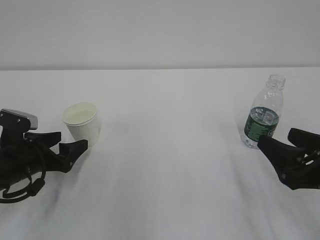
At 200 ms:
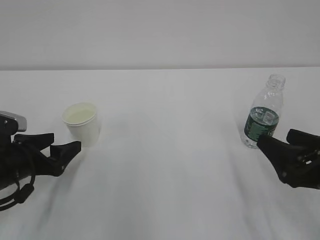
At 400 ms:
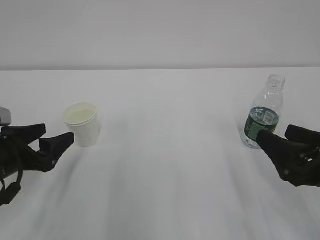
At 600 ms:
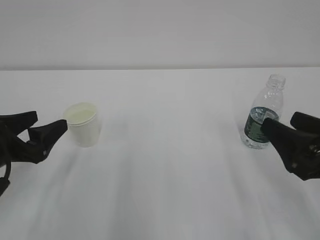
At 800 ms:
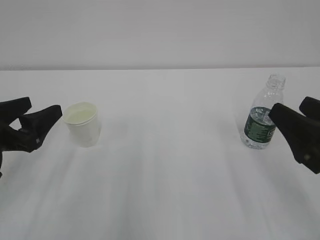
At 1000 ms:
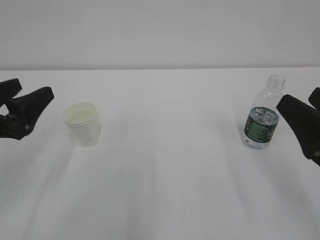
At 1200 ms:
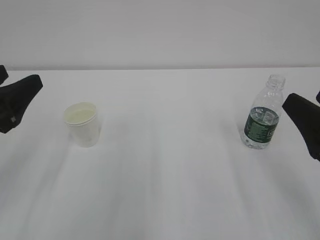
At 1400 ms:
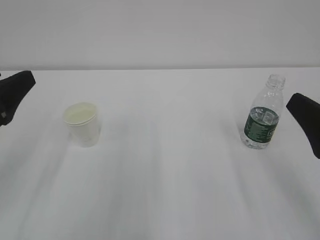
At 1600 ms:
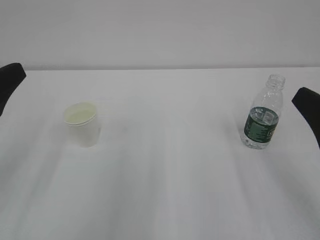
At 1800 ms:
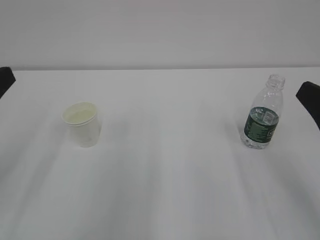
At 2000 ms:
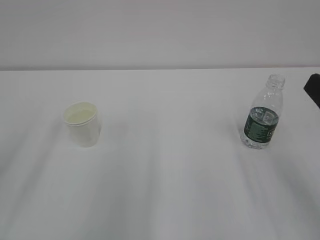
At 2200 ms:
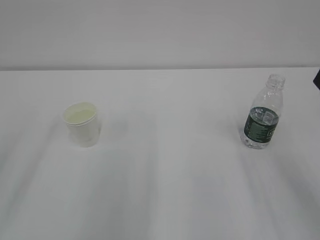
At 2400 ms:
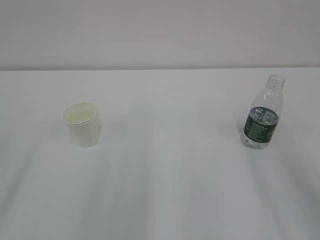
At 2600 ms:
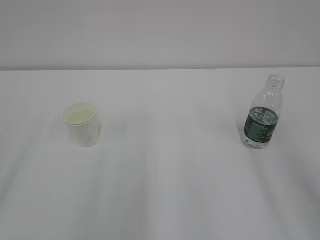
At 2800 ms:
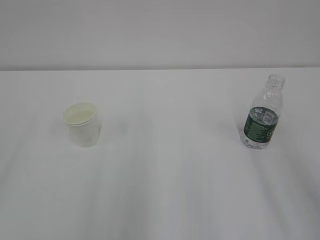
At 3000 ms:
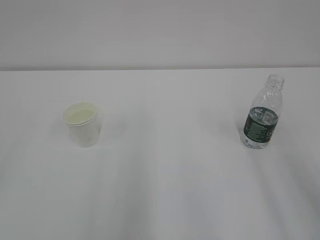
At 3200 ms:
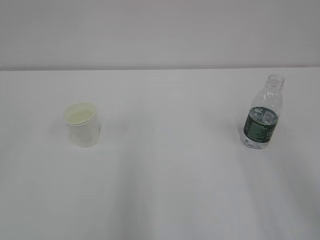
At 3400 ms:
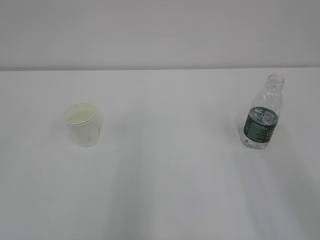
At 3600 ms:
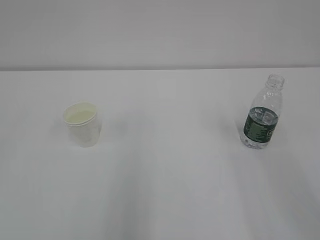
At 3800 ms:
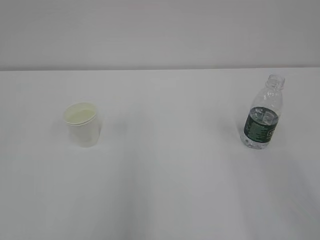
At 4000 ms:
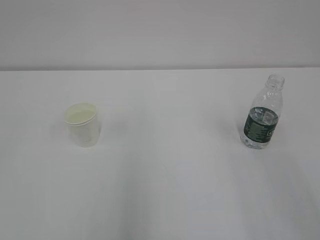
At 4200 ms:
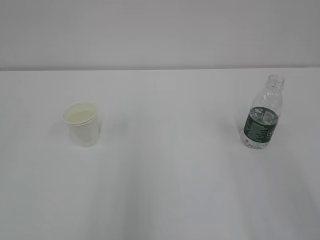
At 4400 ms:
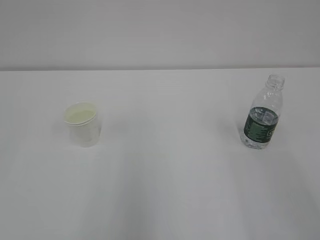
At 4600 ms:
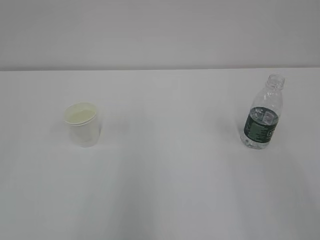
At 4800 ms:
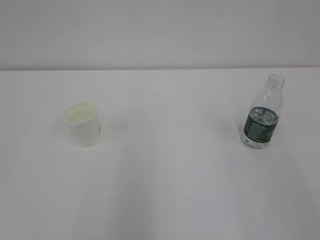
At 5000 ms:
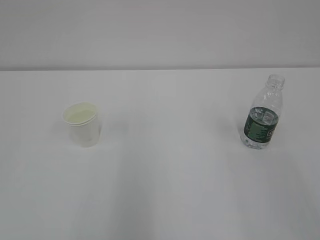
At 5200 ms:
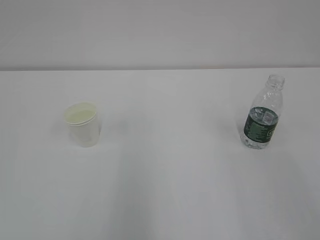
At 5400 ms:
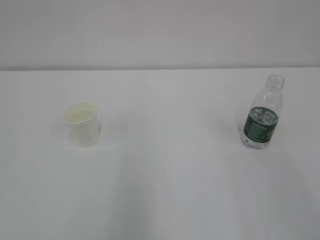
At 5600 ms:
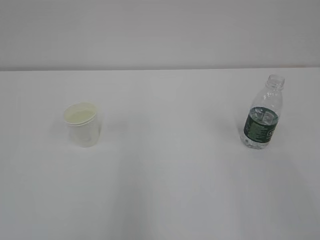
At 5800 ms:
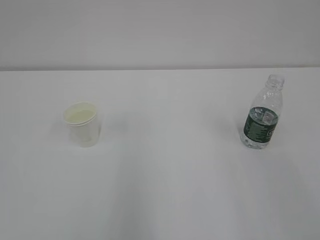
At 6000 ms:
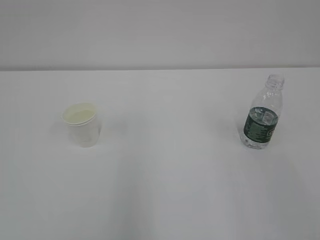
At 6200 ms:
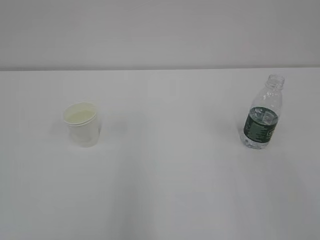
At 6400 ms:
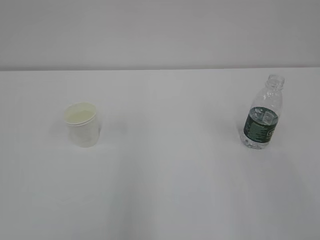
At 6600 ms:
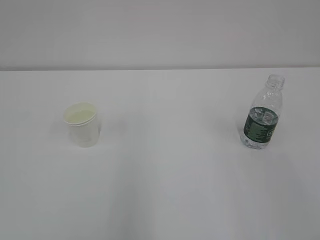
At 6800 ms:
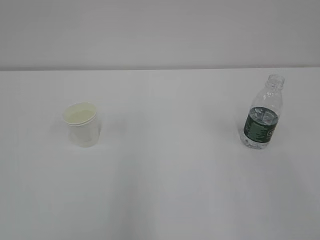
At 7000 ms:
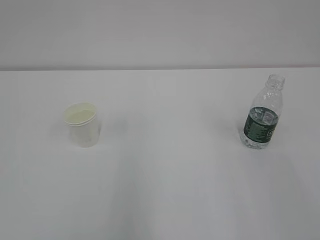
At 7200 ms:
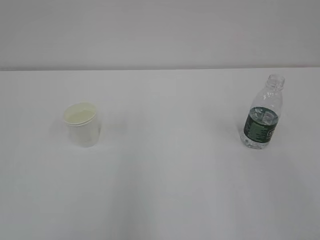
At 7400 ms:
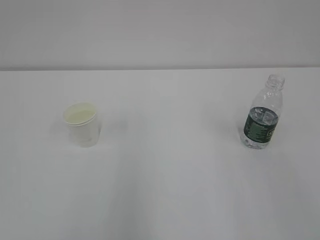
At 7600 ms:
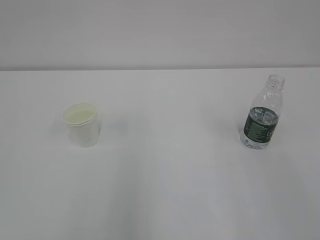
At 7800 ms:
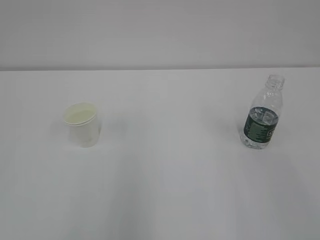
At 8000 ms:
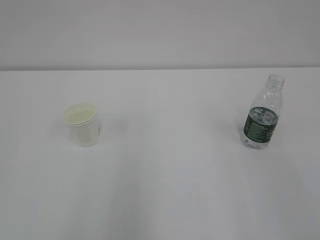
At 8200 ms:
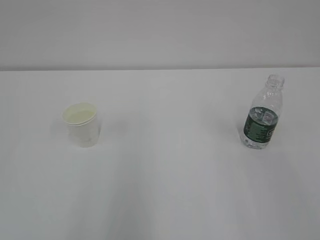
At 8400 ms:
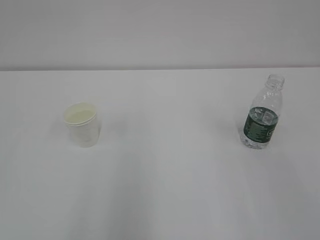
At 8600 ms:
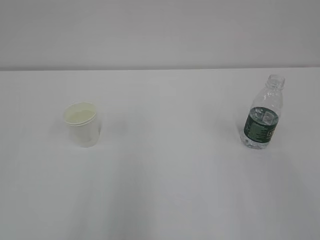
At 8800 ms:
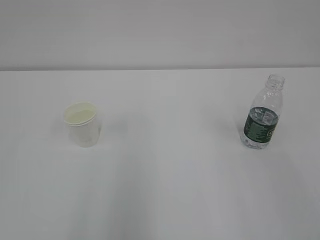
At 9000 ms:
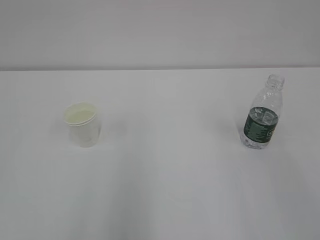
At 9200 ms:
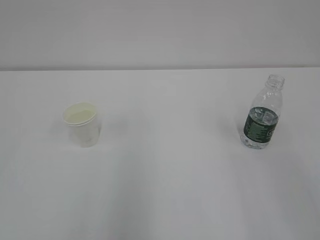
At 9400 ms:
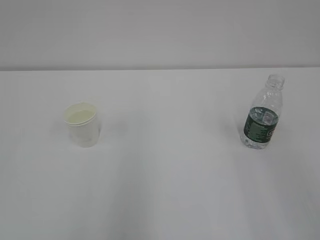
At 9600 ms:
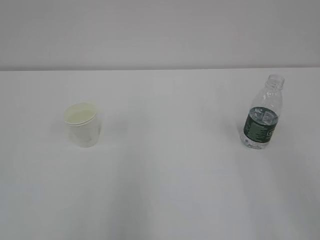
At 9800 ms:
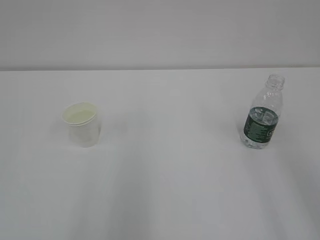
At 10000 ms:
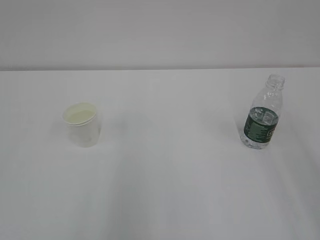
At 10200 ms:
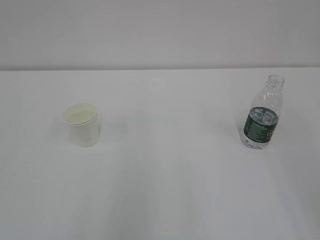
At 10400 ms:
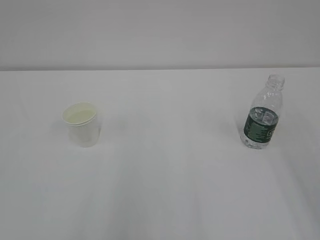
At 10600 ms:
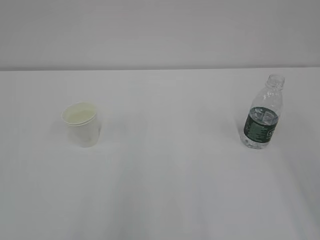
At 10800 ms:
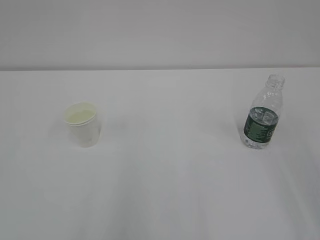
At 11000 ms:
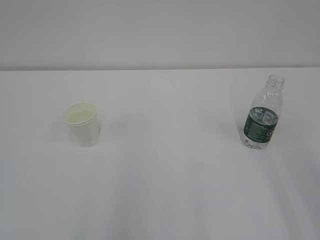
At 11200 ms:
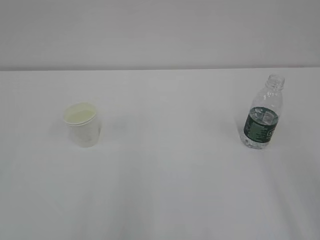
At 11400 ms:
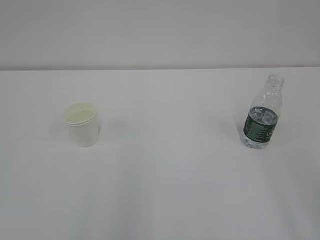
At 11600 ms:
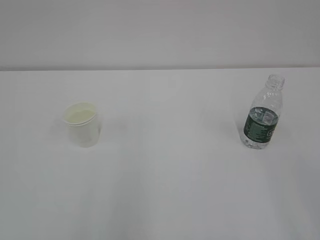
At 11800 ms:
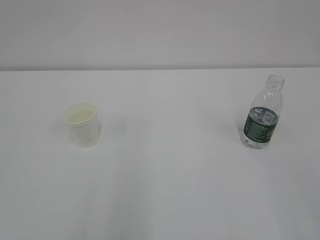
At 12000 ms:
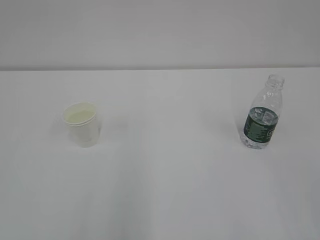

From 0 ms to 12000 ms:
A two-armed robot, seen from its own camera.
From 0 ms to 1600 ms: The left gripper goes about 20 cm upward and backward. The right gripper shifts approximately 10 cm upward.
From 1600 ms to 3000 ms: The right gripper moves upward, about 10 cm. Meanwhile the left gripper goes some 15 cm backward, upward and to the left.
From 6000 ms to 7600 ms: The two grippers keep their place.

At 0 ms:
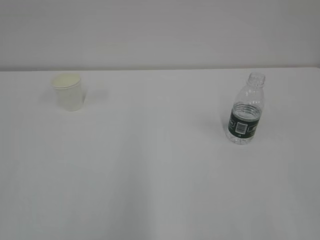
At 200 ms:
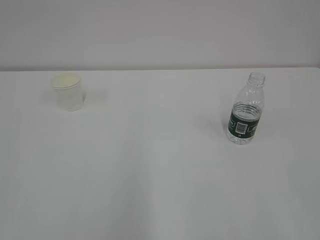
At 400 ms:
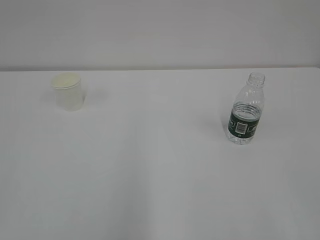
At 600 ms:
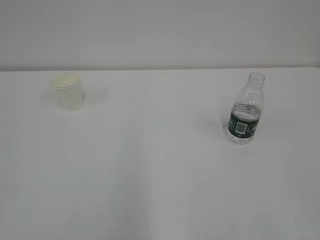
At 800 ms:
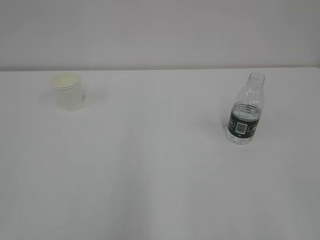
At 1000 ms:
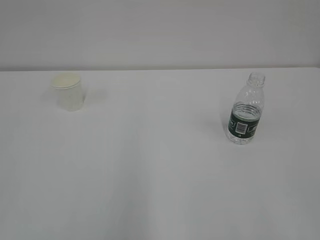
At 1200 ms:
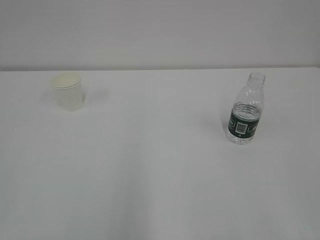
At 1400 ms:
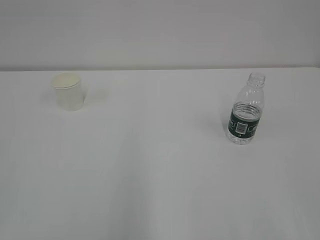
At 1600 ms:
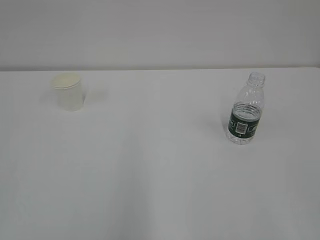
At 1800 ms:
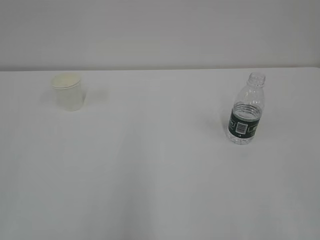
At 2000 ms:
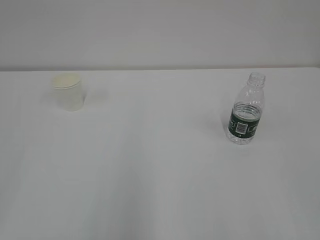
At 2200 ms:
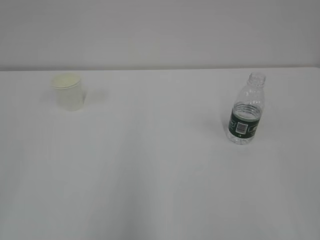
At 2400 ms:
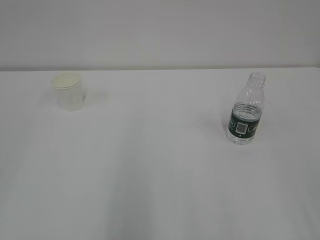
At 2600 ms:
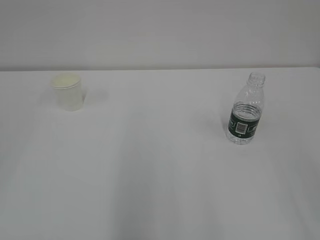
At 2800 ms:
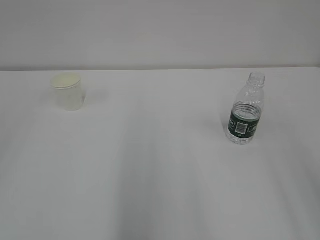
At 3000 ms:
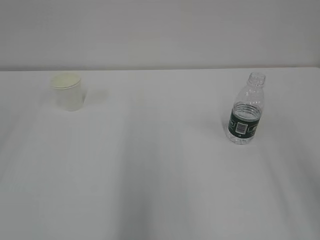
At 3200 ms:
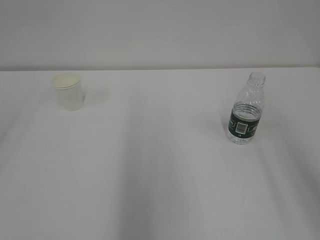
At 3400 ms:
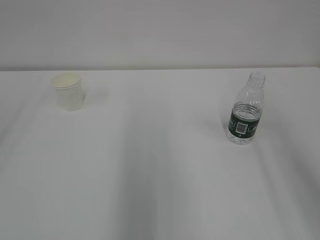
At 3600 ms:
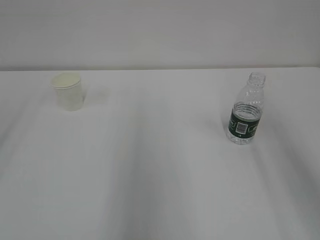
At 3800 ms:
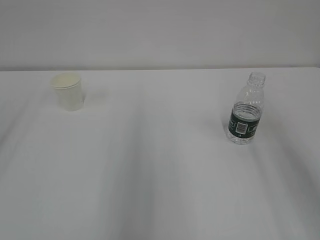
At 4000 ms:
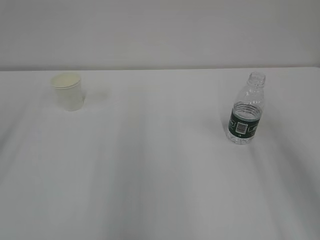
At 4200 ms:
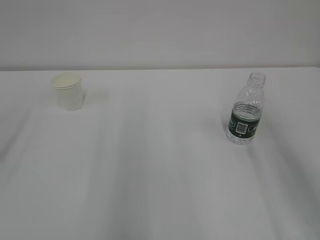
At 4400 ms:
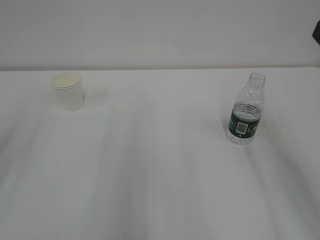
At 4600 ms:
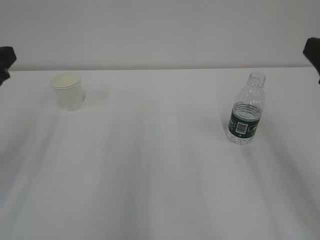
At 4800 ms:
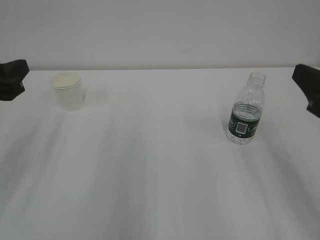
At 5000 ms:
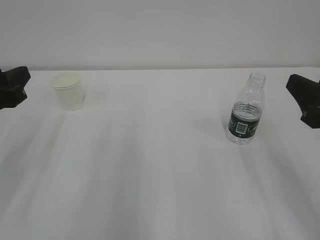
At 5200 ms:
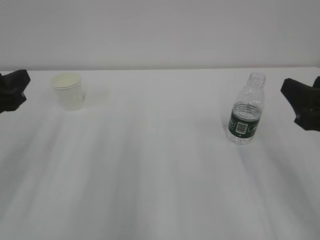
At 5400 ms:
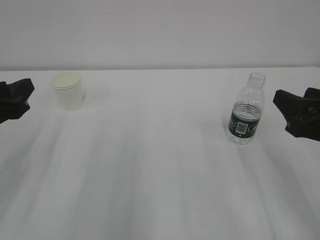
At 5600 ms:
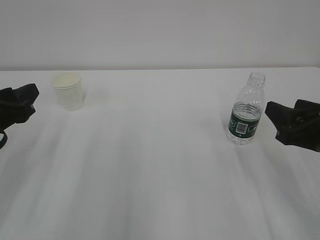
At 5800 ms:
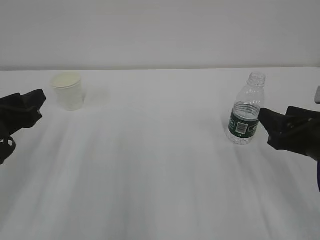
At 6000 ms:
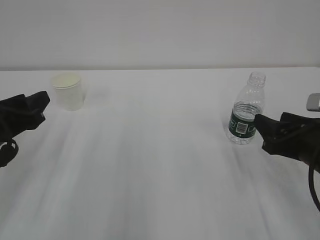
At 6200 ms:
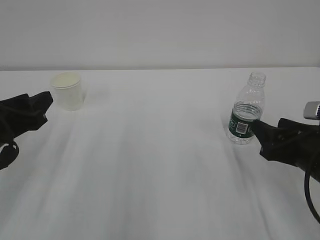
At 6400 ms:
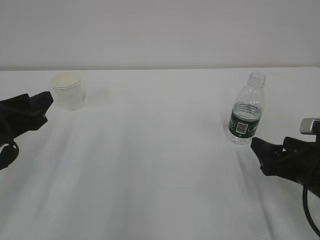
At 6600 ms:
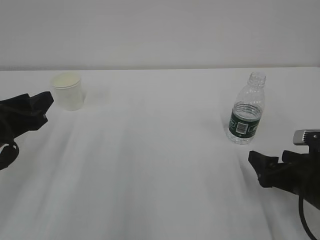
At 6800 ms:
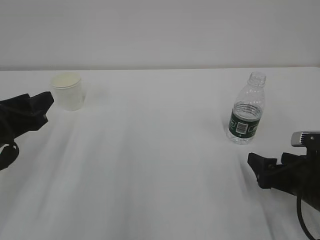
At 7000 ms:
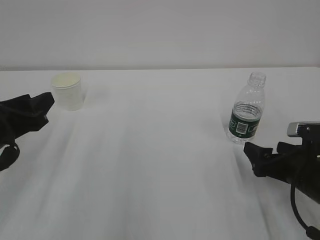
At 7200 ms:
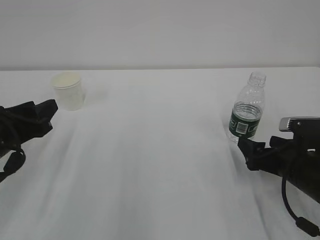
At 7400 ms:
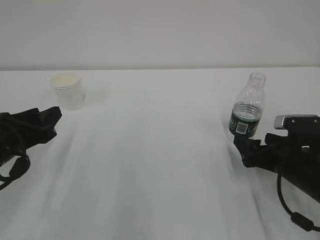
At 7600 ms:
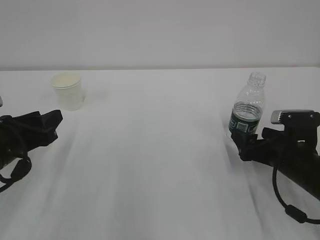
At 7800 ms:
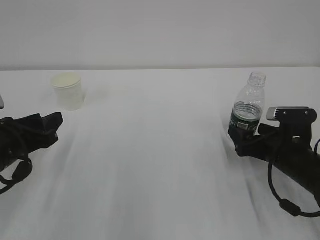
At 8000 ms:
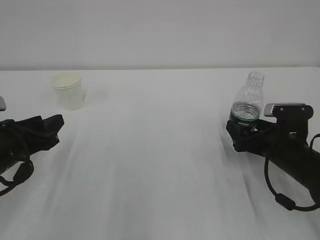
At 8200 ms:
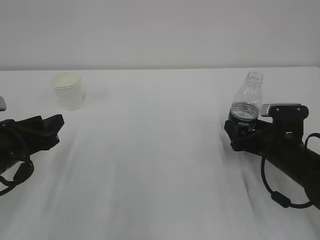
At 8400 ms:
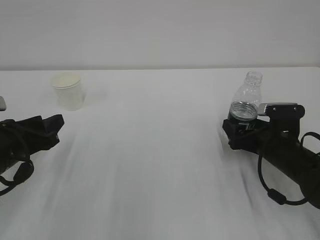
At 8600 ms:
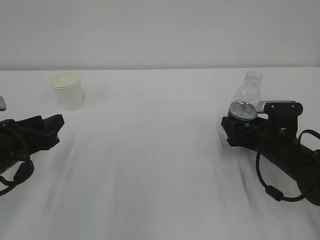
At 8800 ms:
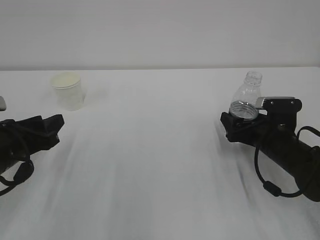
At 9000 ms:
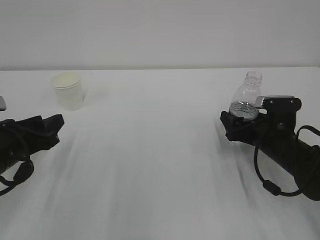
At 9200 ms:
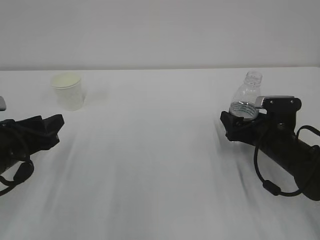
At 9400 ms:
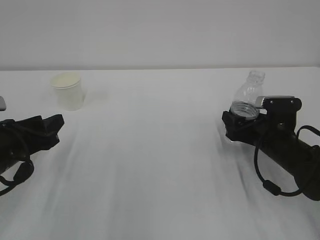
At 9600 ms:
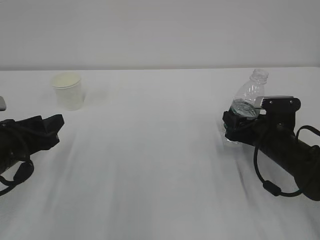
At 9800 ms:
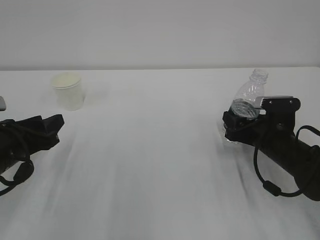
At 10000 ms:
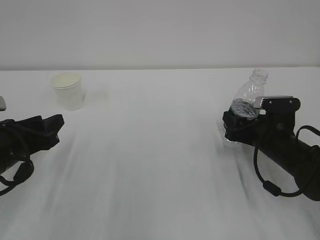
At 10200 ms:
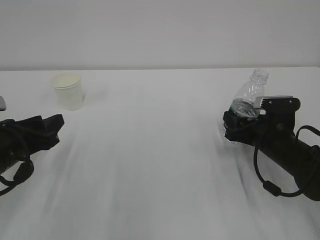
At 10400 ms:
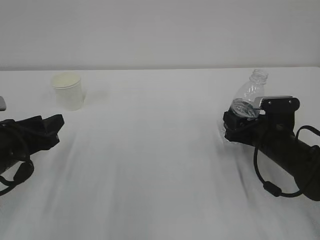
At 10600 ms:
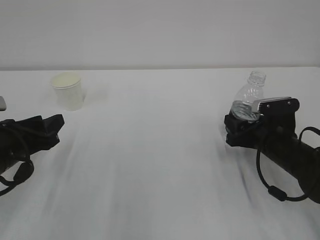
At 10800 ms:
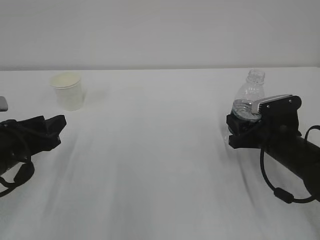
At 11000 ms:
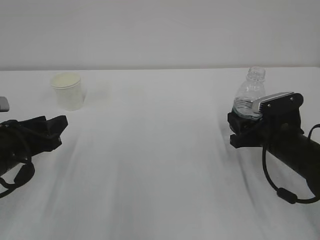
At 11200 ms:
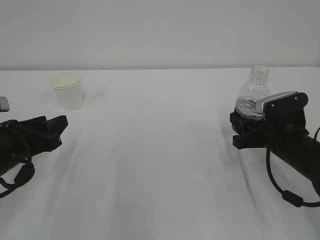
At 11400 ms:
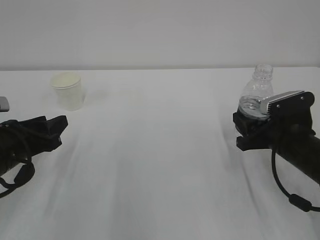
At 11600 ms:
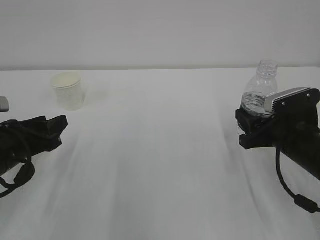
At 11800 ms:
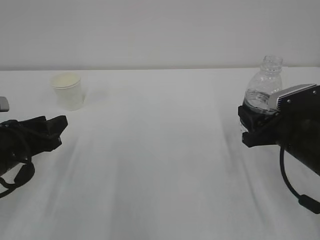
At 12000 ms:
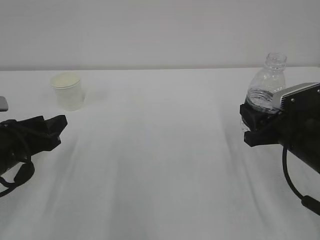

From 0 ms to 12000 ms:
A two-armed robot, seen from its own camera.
From 4400 ms to 6000 ms: The two grippers go roughly 15 cm downward.
From 6000 ms to 7600 ms: The right gripper shifts approximately 5 cm downward, and opens.
From 7600 ms to 9000 ms: The right gripper heads forward, covering approximately 5 cm.
From 9000 ms to 10400 ms: The right gripper closes its fingers.
From 10400 ms to 12000 ms: The right gripper goes roughly 10 cm upward and backward.
